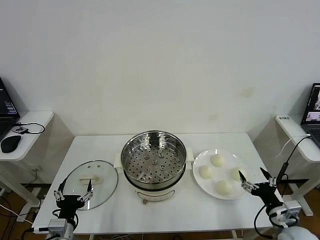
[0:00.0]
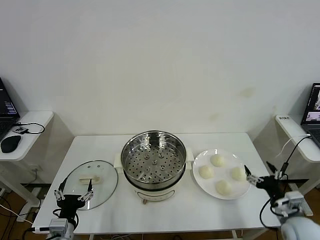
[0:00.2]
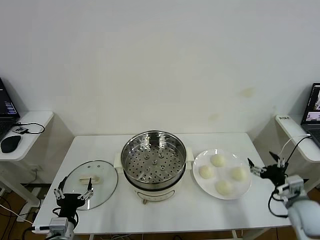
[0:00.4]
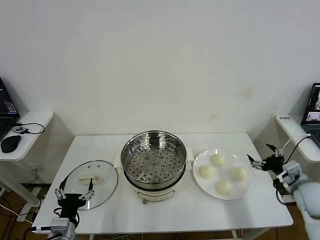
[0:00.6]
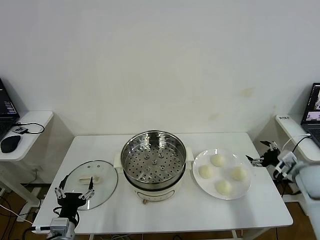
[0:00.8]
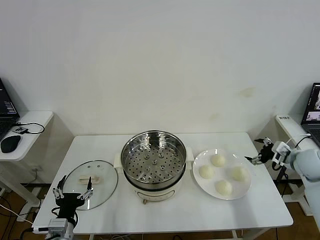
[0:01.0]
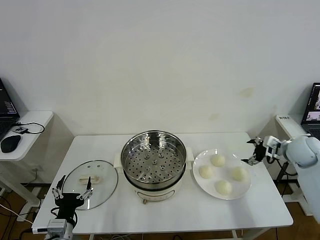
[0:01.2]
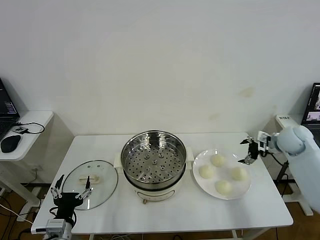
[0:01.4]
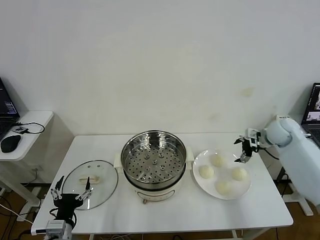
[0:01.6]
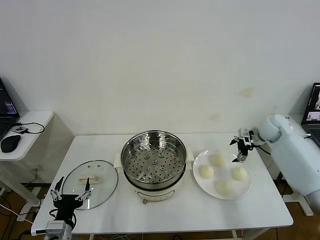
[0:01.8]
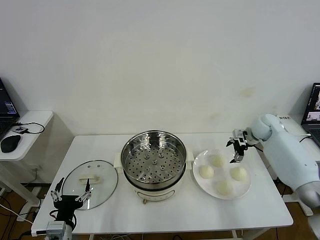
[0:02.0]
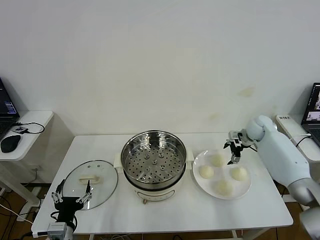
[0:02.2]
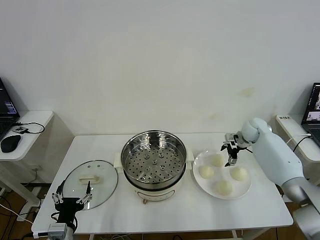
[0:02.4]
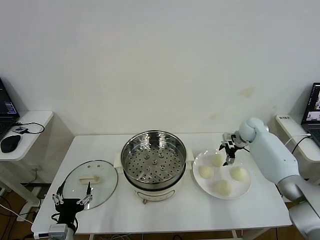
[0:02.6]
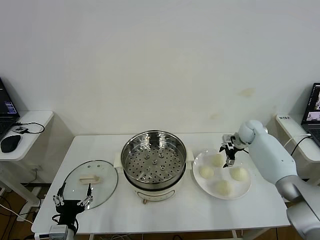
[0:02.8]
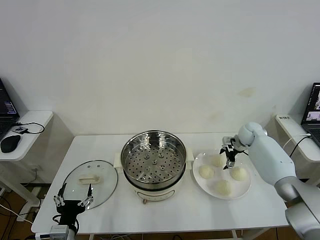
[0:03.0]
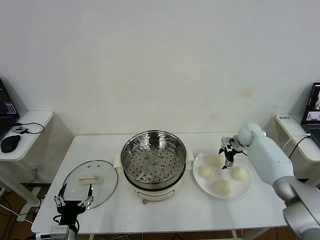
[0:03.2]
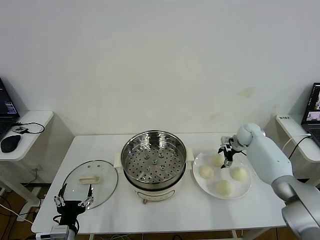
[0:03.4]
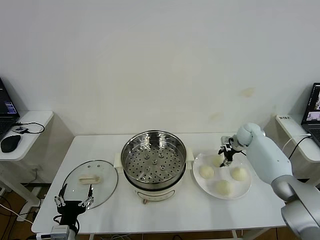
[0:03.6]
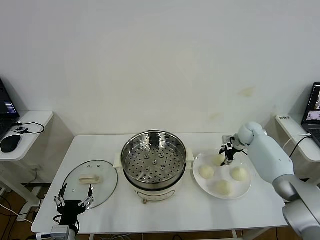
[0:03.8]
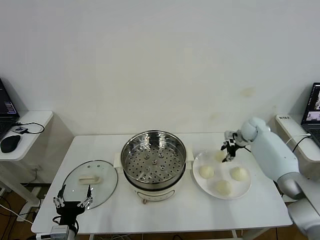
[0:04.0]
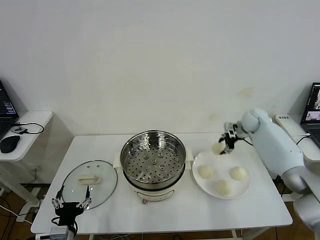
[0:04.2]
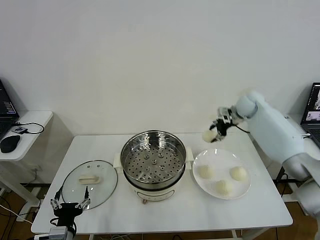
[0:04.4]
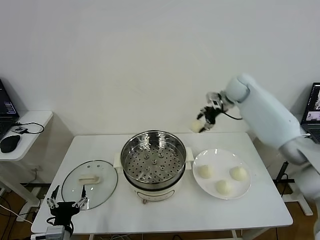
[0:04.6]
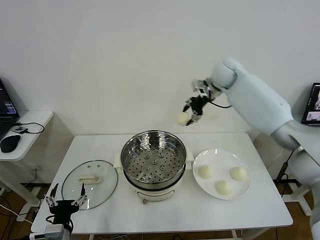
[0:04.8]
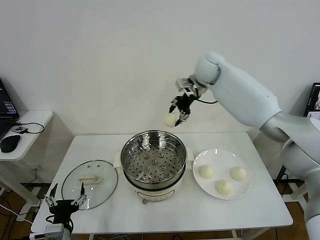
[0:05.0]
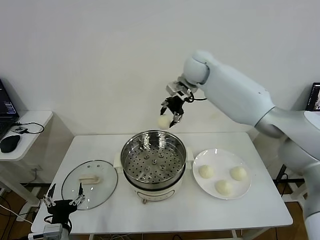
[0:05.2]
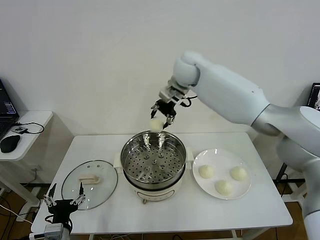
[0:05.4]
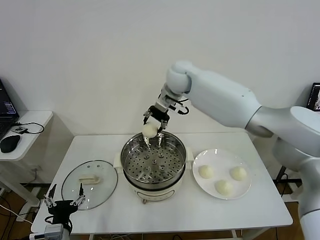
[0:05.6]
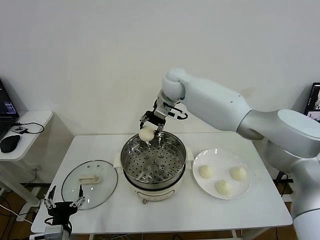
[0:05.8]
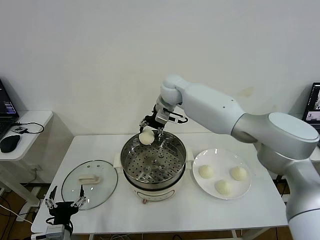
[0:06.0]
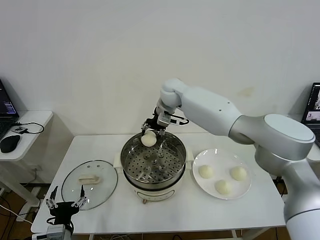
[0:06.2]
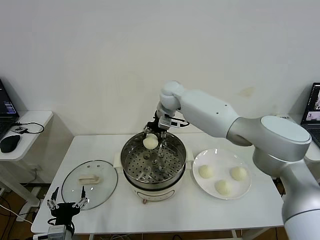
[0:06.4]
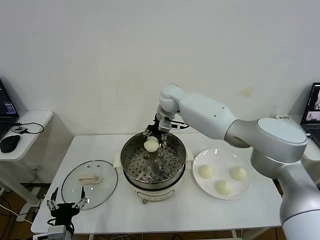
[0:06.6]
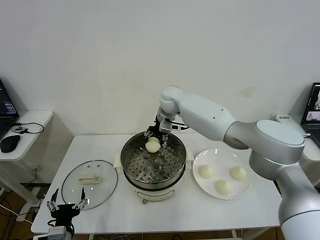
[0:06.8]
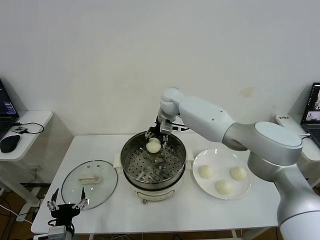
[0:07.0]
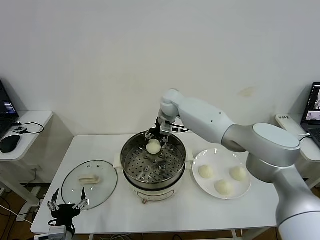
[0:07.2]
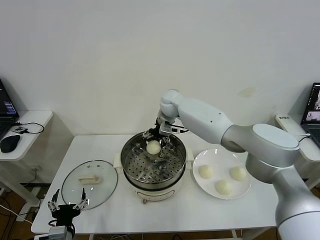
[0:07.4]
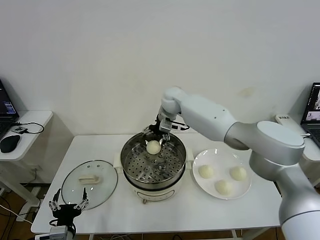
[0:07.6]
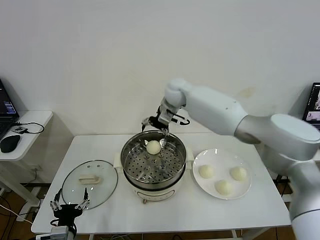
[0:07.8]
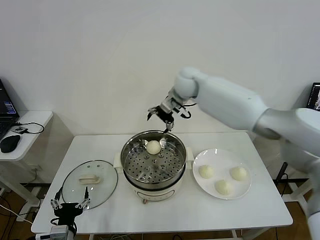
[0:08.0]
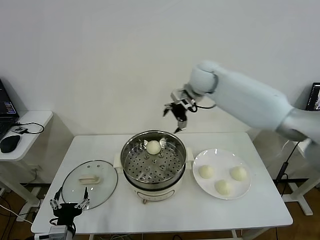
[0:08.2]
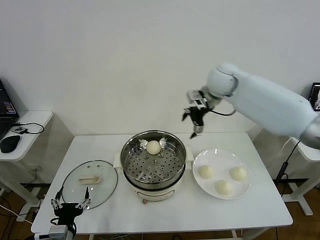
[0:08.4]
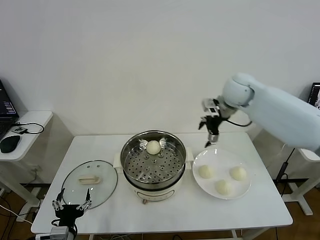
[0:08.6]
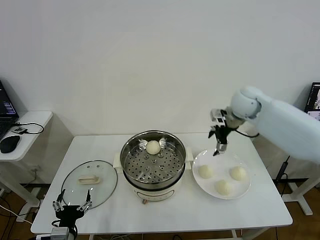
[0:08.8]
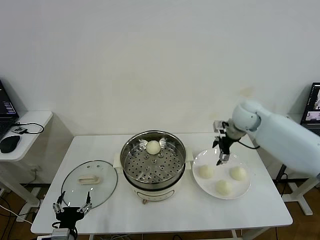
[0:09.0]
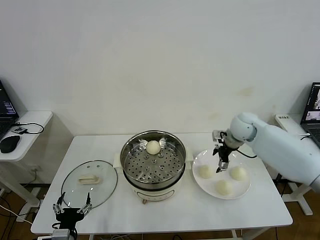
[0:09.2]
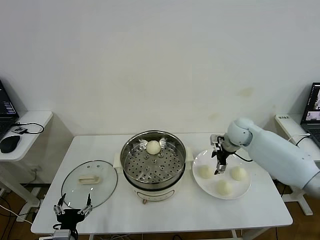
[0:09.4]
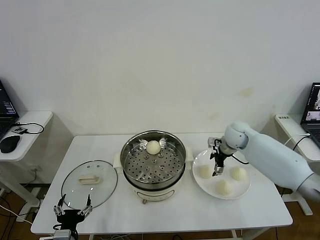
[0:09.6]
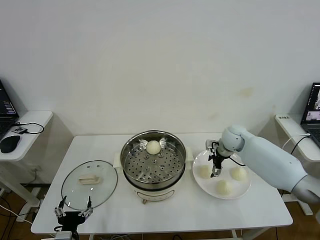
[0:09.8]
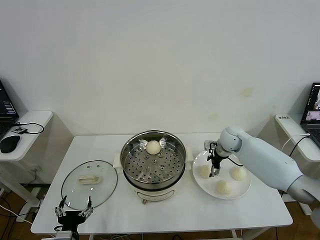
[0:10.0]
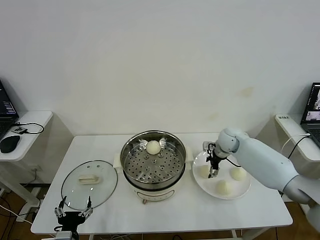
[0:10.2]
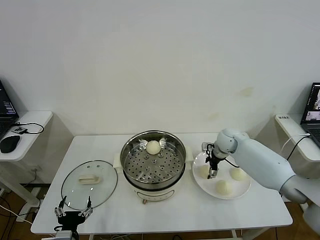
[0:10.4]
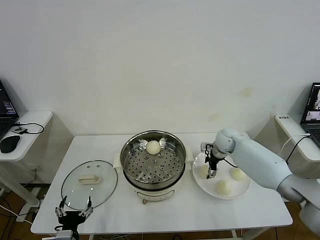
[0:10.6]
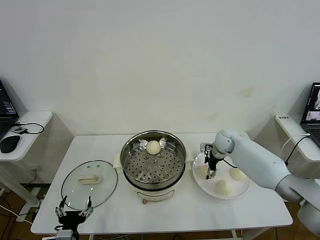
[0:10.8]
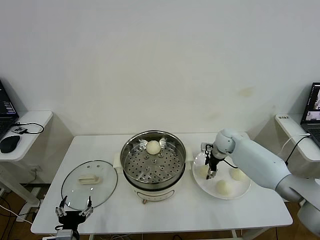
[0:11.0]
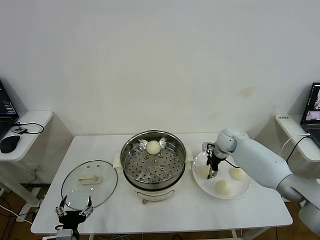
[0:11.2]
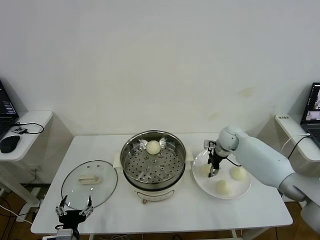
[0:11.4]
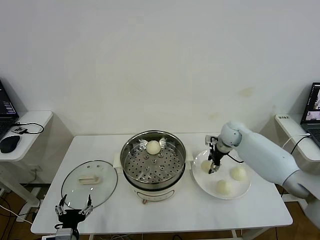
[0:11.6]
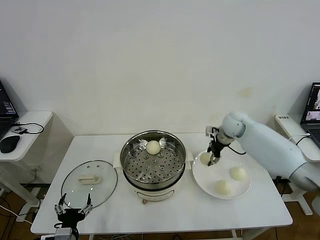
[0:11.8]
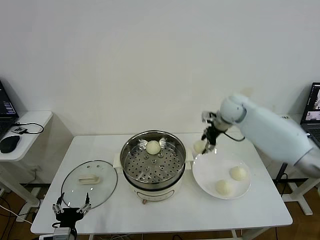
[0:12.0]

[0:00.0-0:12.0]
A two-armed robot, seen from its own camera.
Step, 0:00.0 to 0:03.6: Grasp the baozi in the plate with right gripper.
Step, 0:03.8 to 0:07.4: Place the baozi on the steamer with right gripper.
Step, 0:07.6 to 0:11.2: Grasp the baozi in the plate with right gripper.
0:01.6 to 0:03.0: The right gripper travels downward and forward by roughly 10 cm.
0:03.0 to 0:04.4: The right gripper moves upward and to the left, some 20 cm, and closes its fingers.
0:04.4 to 0:06.0: The right gripper is displaced to the left by some 25 cm.
0:06.0 to 0:07.6: The right gripper opens its fingers.
0:07.6 to 0:09.0: The right gripper travels to the right by some 25 cm.
0:09.0 to 0:10.4: The right gripper shifts roughly 10 cm downward.
0:10.4 to 0:12.0: The right gripper goes approximately 20 cm upward, and closes its fingers.

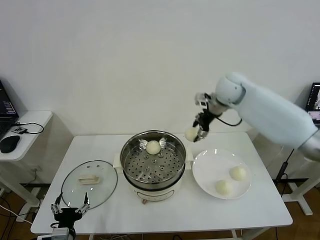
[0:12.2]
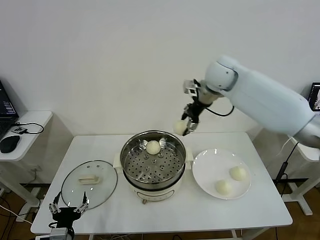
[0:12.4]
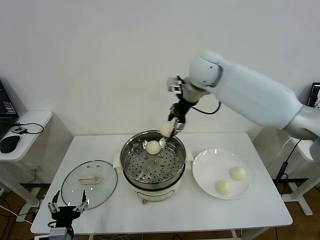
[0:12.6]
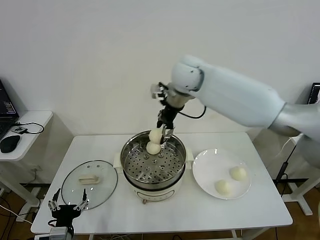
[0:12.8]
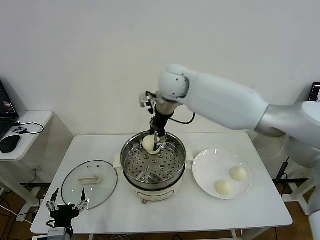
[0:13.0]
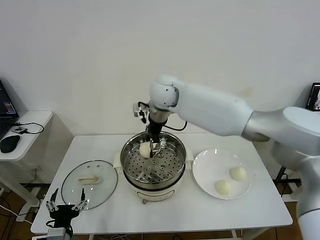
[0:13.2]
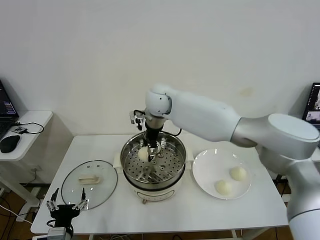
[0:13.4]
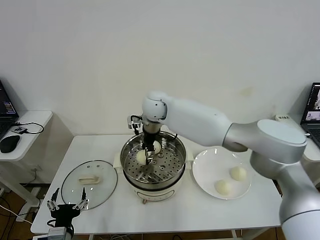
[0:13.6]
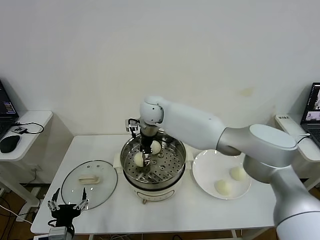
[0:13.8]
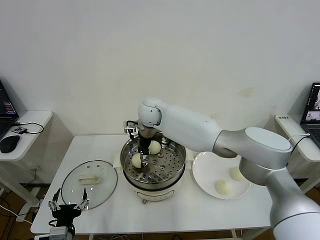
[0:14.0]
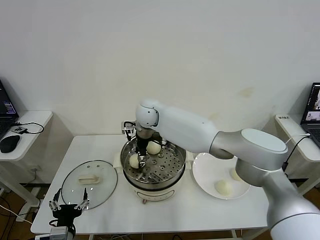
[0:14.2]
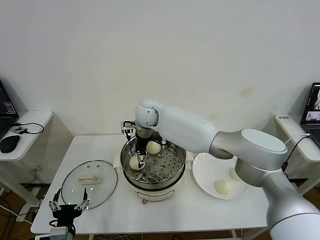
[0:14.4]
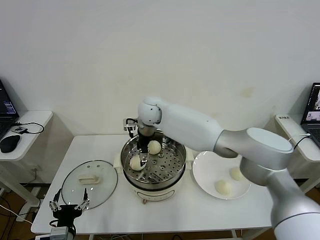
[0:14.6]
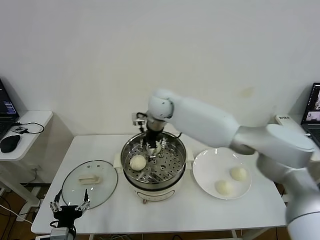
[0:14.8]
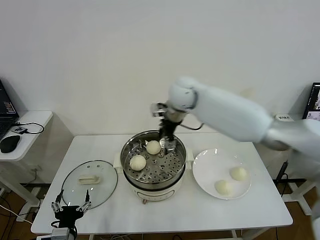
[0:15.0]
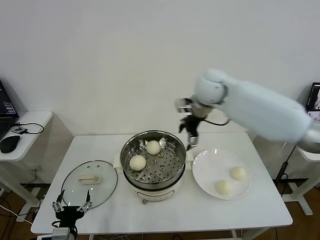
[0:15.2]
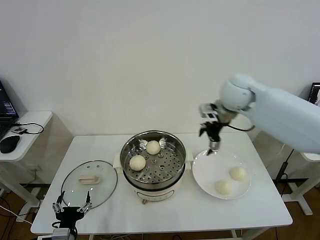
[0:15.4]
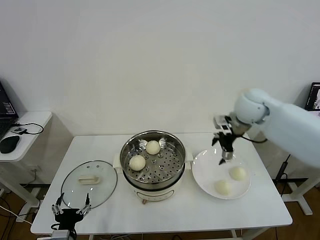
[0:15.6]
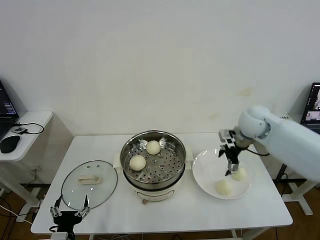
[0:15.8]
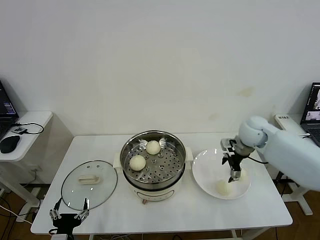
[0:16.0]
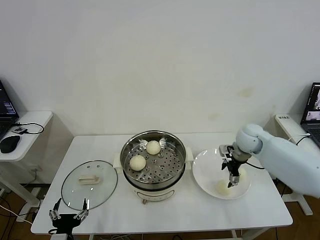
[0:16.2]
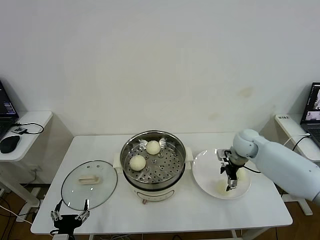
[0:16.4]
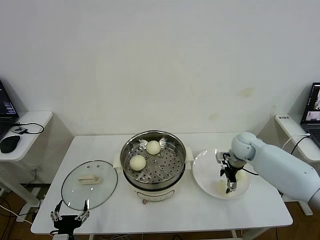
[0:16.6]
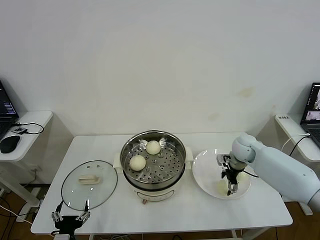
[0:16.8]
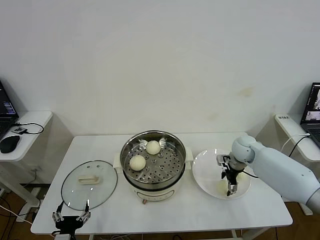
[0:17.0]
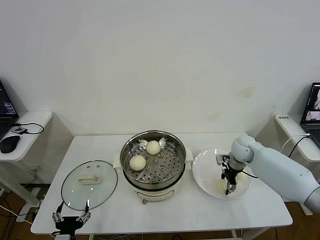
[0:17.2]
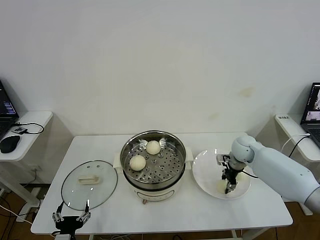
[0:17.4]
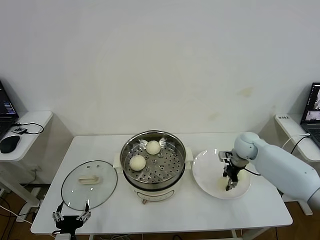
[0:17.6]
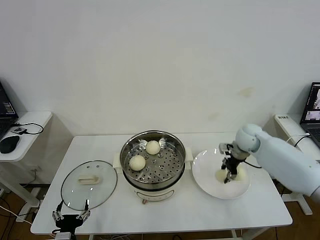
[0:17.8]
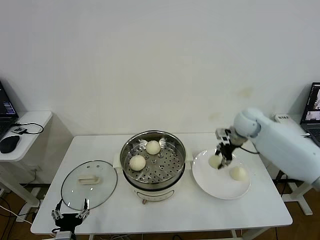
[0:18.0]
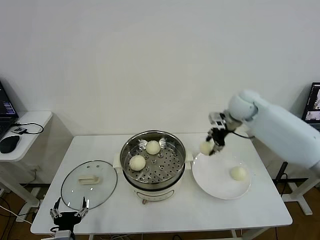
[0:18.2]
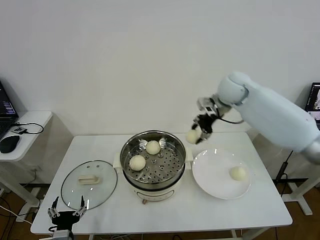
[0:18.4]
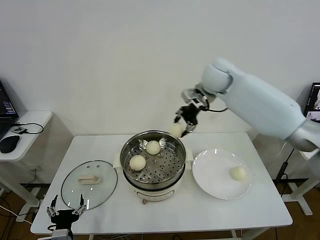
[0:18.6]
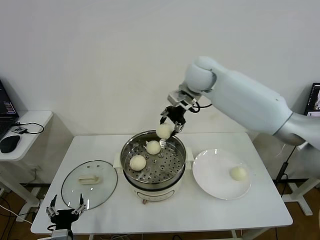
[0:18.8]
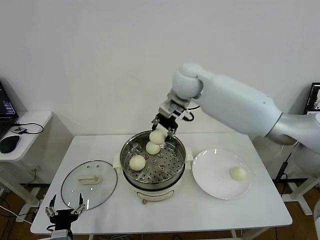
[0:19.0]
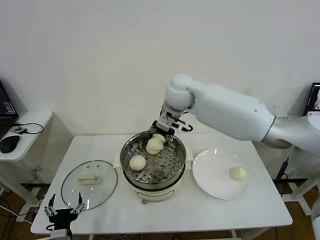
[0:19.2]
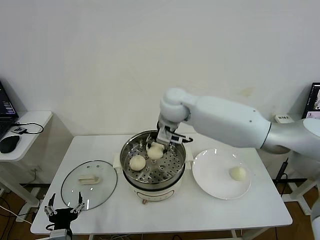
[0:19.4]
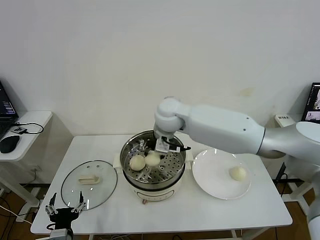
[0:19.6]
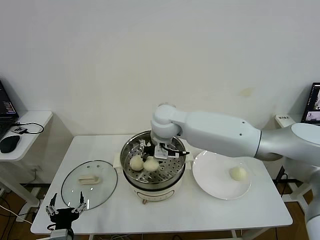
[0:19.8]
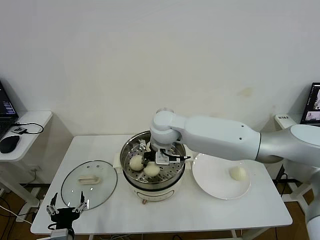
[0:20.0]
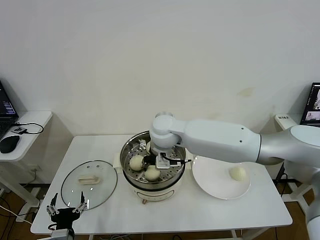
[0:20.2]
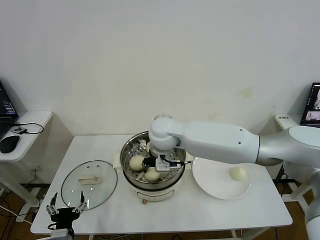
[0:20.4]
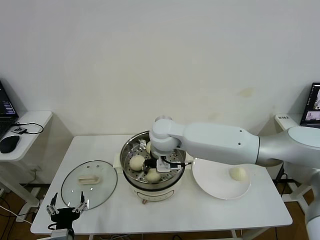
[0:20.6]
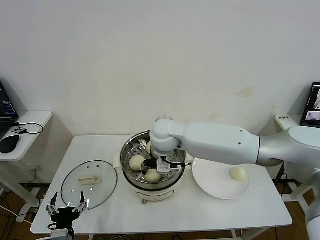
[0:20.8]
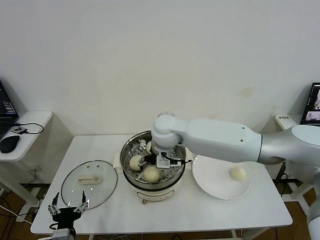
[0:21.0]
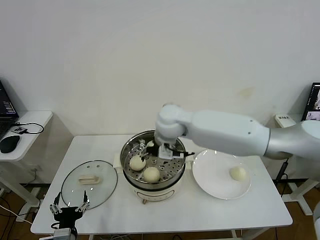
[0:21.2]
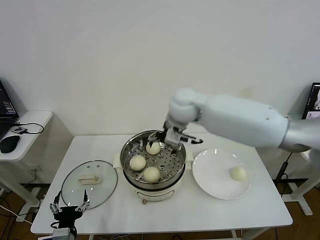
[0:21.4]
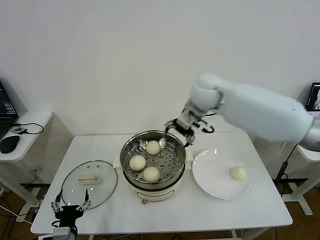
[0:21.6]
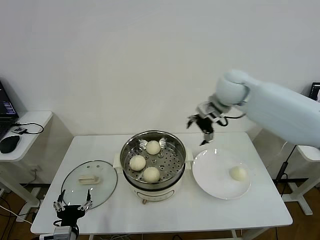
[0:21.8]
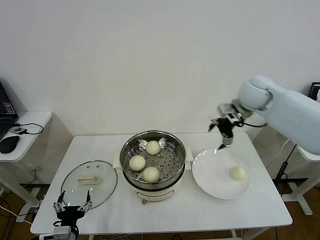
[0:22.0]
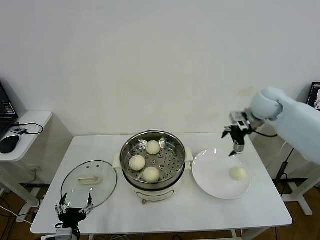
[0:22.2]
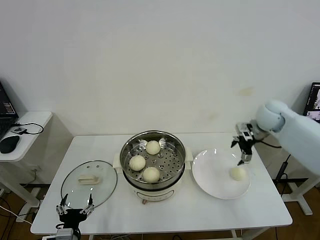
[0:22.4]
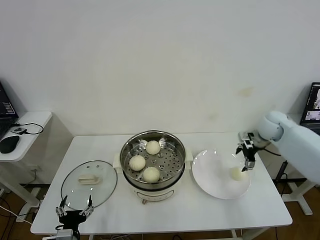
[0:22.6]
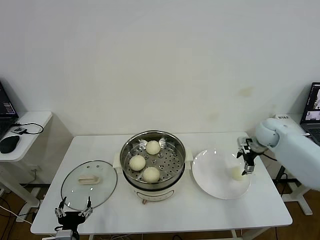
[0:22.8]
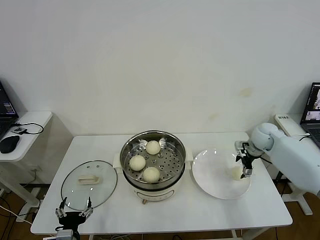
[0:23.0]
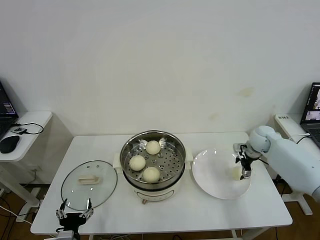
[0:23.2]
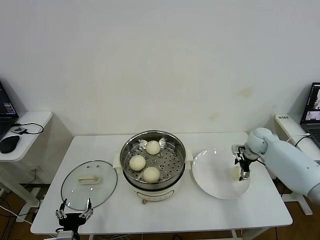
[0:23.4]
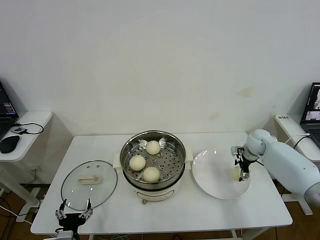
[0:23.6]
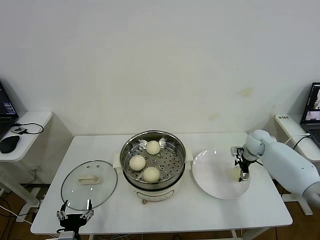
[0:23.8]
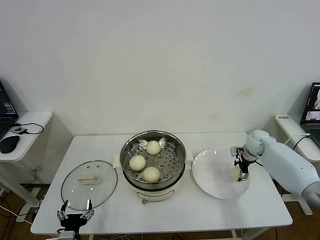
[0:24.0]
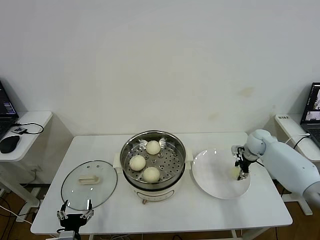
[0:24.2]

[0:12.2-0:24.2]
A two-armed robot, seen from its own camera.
Step, 0:12.2 to 0:14.4: Place the baozi on the steamer with right gripper.
Step, 0:14.8 to 0:17.2: Grasp the baozi in the plate with right gripper.
Step, 0:17.4 to 0:20.8: Place the baozi on the steamer with right gripper.
0:12.2 to 0:13.8: The right gripper heads to the left and downward, covering some 25 cm.
0:13.8 to 0:15.2: The right gripper goes roughly 25 cm to the right and upward, and opens up.
0:15.2 to 0:16.6: The right gripper travels downward and to the right by approximately 25 cm.
0:16.6 to 0:18.2: The right gripper moves upward, roughly 20 cm, and closes.
0:18.2 to 0:19.8: The right gripper goes some 25 cm to the left.
0:19.8 to 0:21.2: The right gripper opens.
0:21.2 to 0:22.6: The right gripper moves to the right, approximately 35 cm.
0:22.6 to 0:24.2: The right gripper moves downward, roughly 10 cm, and closes.
